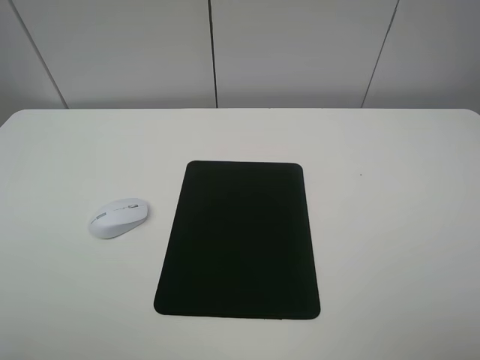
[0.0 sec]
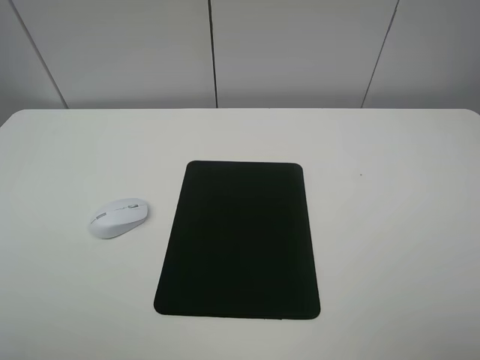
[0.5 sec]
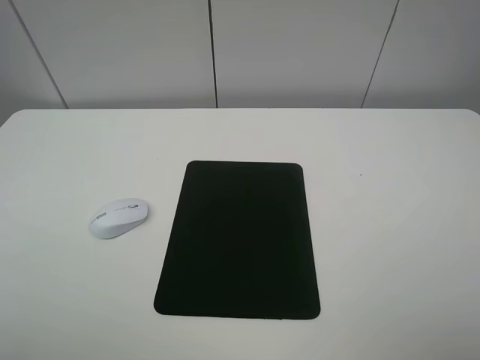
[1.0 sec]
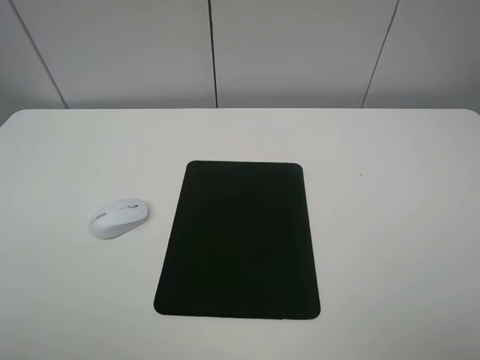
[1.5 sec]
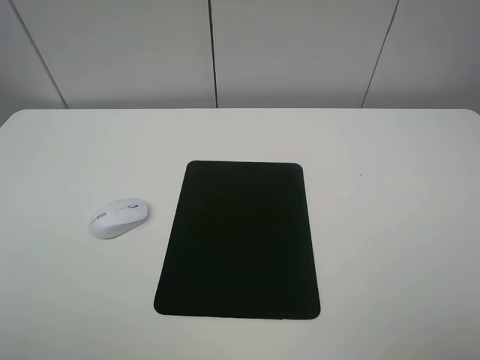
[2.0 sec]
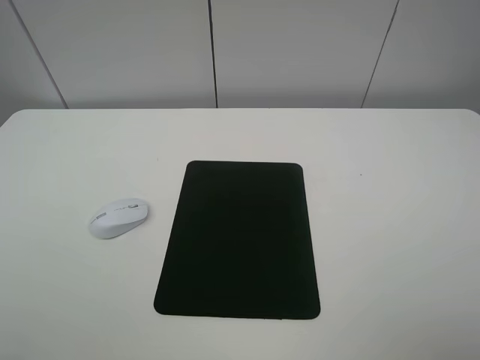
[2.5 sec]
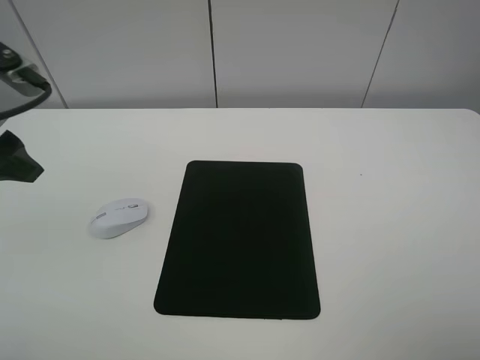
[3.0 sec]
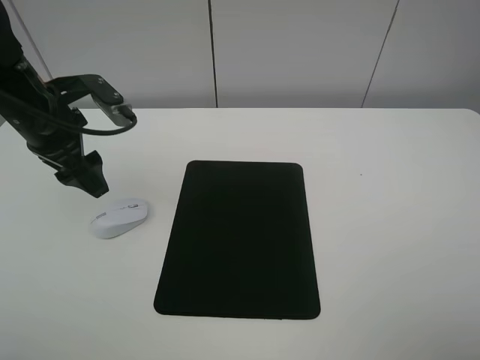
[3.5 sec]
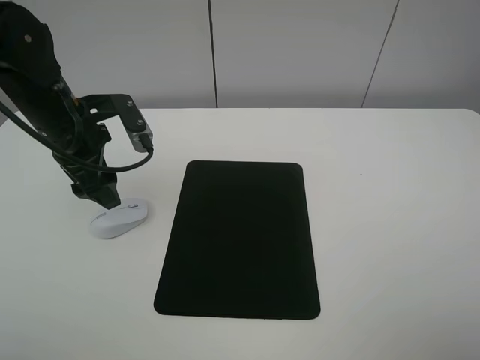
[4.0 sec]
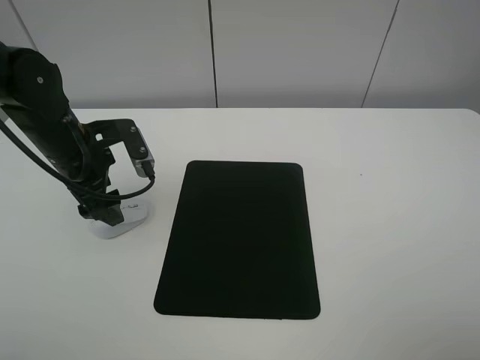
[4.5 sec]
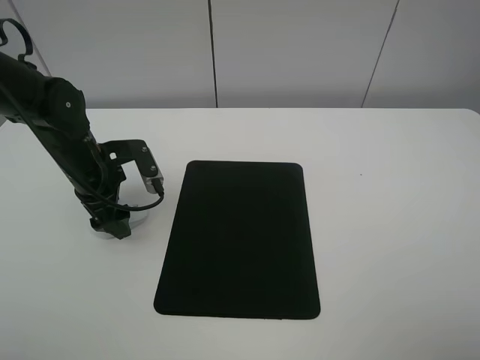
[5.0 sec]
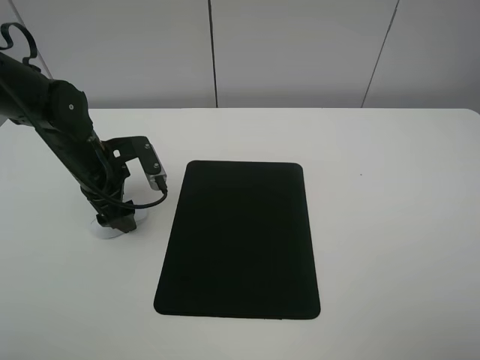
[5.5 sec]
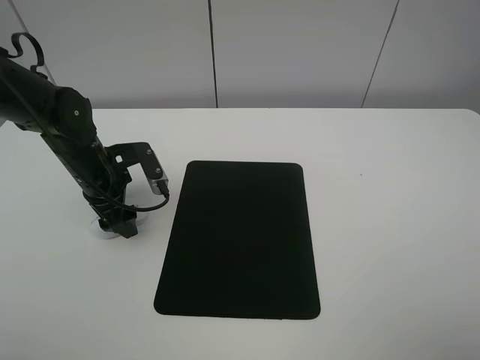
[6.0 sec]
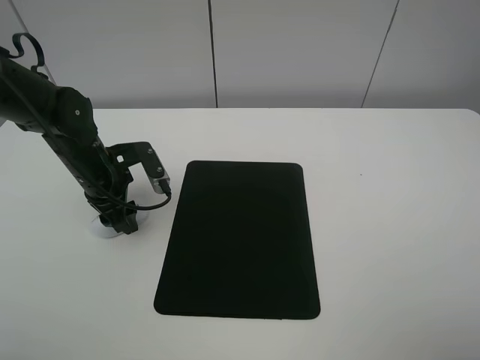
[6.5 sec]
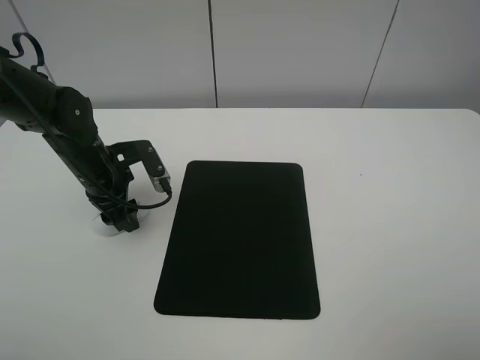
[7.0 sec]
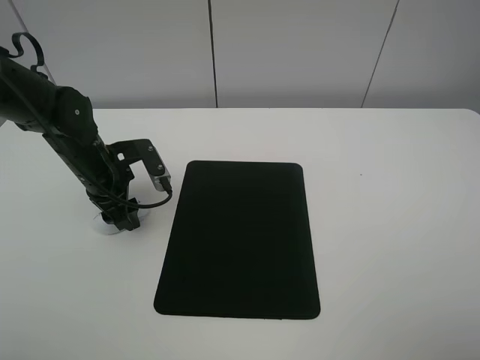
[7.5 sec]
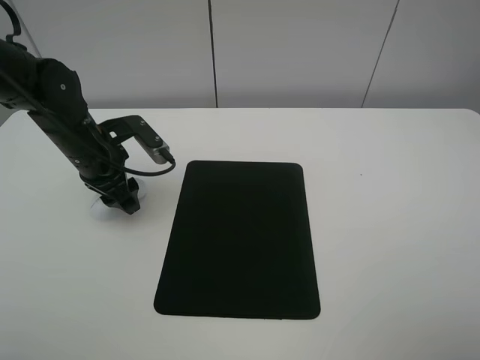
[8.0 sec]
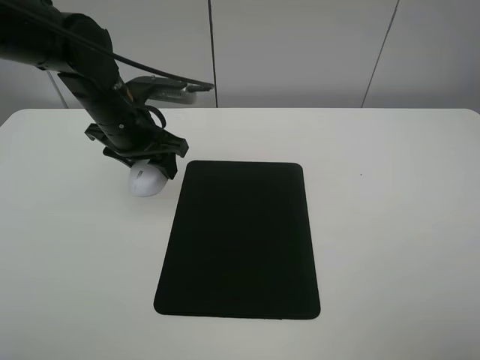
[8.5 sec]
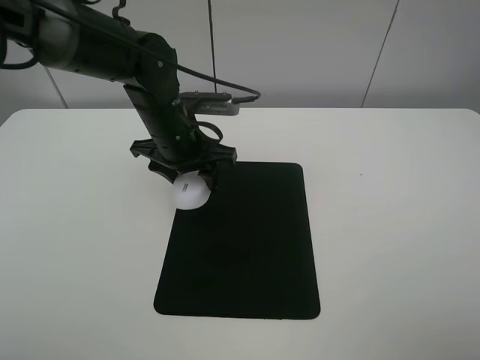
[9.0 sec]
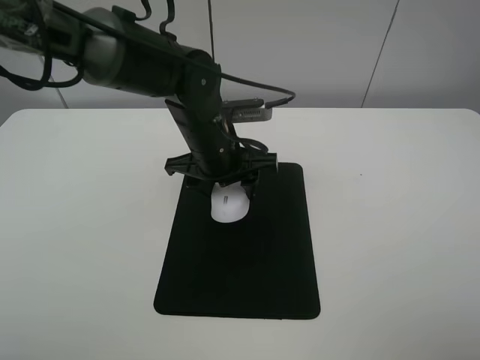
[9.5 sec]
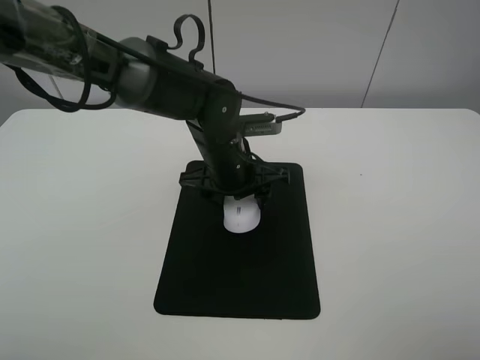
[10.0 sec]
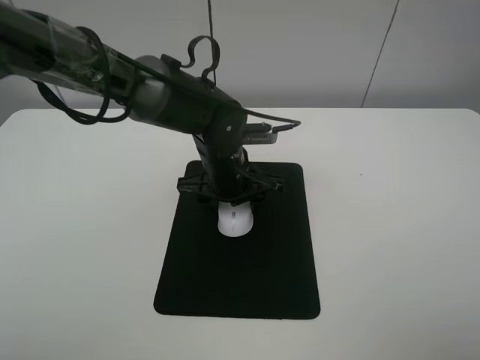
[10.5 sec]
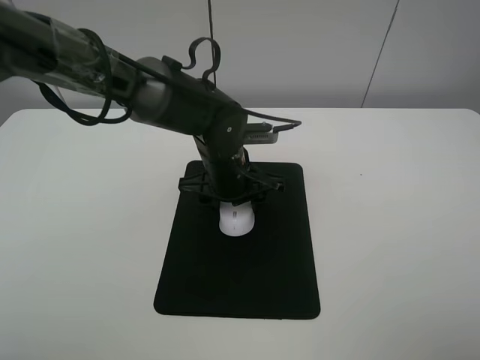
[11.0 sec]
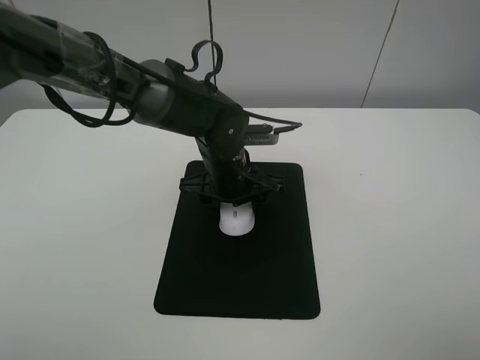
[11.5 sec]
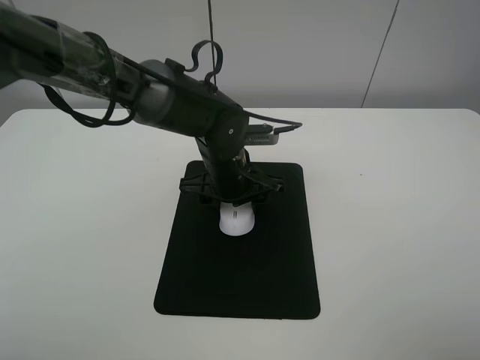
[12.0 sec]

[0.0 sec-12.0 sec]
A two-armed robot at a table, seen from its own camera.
Step, 0.0 sec to 7.0 sec: Grasp the mouse with the left gripper.
0.0 sec to 2.0 sec: Both grippers stay put.
2.0 sec to 4.0 sec: The left gripper is displaced forward and to the right by some 30 cm.
4.0 sec to 6.0 sec: The left gripper travels downward by some 10 cm.
6.0 sec to 8.0 sec: The left gripper closes its fingers.
8.0 sec to 10.0 sec: The left gripper goes roughly 20 cm to the right.
10.0 sec to 12.0 sec: The grippers stay close to where they were, moving slightly.

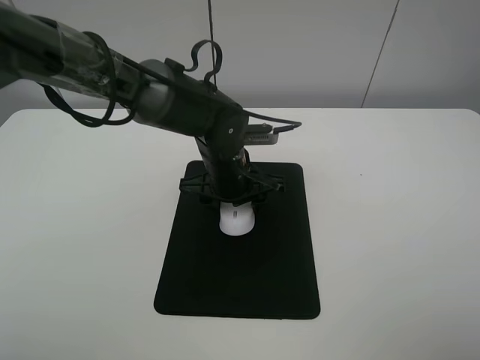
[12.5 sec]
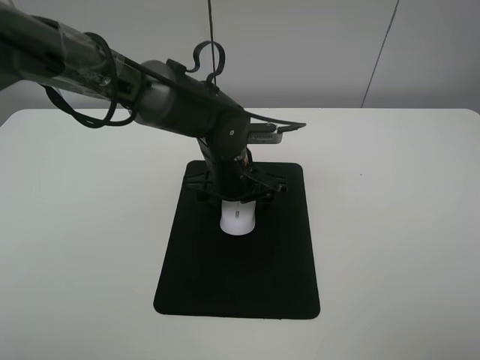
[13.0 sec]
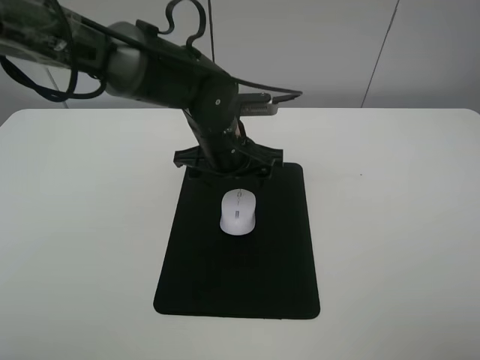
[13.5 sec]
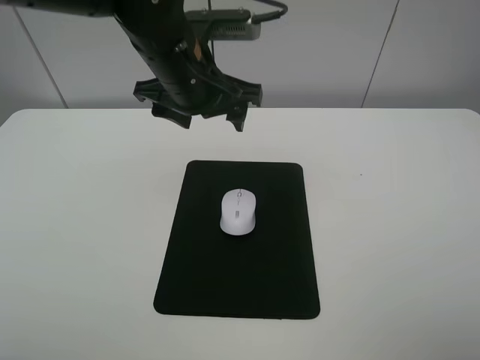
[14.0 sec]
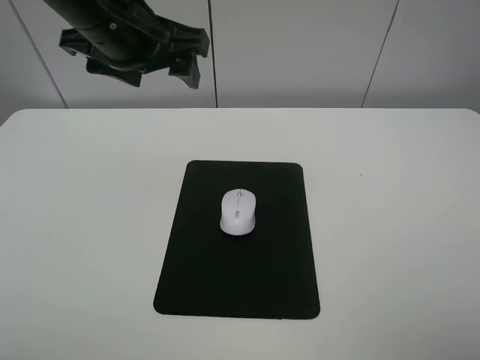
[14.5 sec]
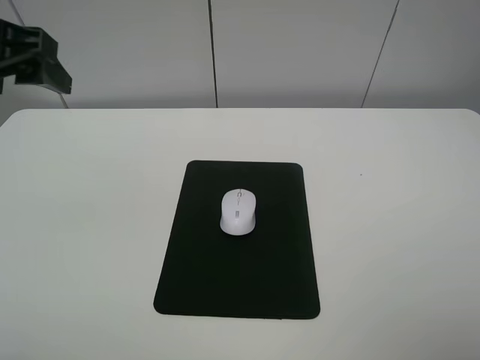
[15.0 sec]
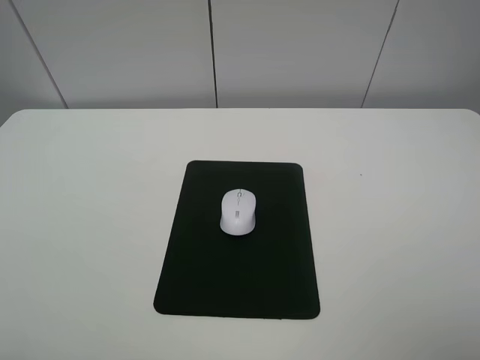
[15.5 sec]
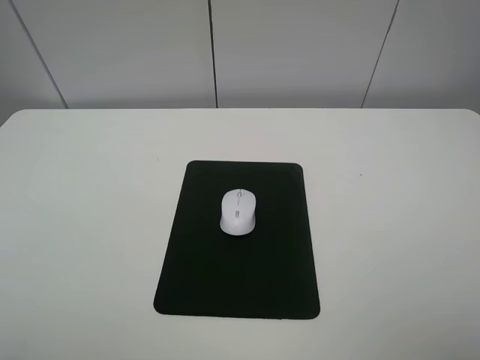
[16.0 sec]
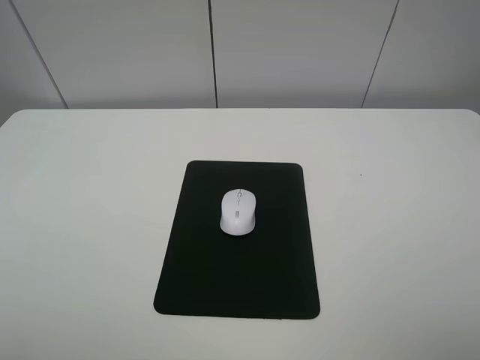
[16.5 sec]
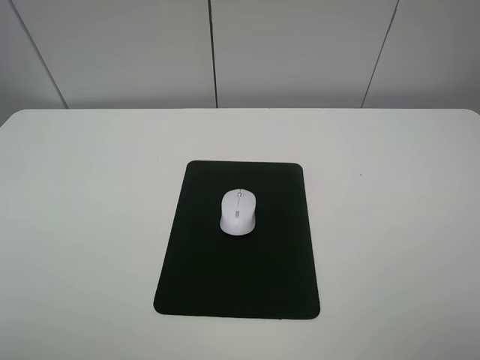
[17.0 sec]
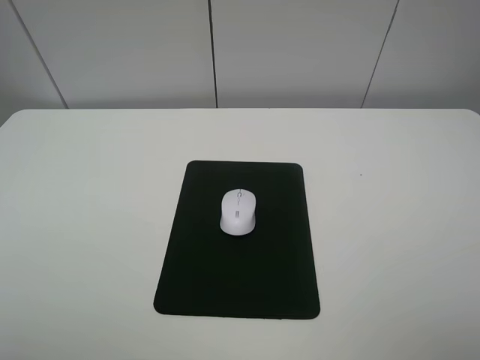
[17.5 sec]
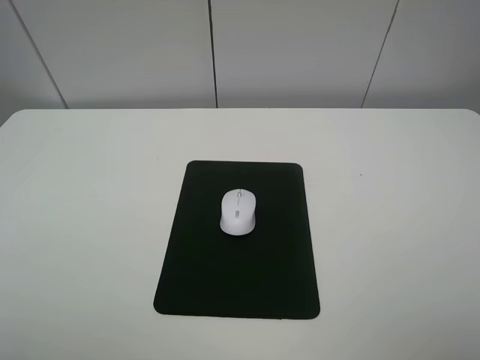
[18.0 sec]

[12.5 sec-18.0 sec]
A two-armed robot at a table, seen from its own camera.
12.5 sec to 14.5 sec: The left gripper is displaced upward and to the left by roughly 25 cm, and opens.
14.5 sec to 16.0 sec: The left gripper shifts roughly 30 cm backward and to the left.
